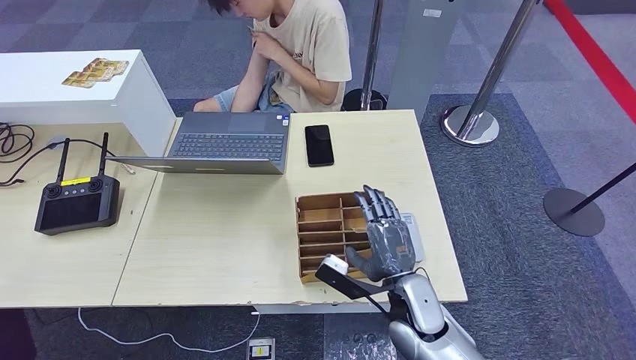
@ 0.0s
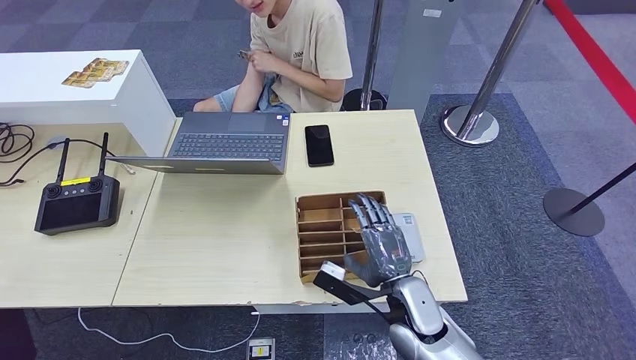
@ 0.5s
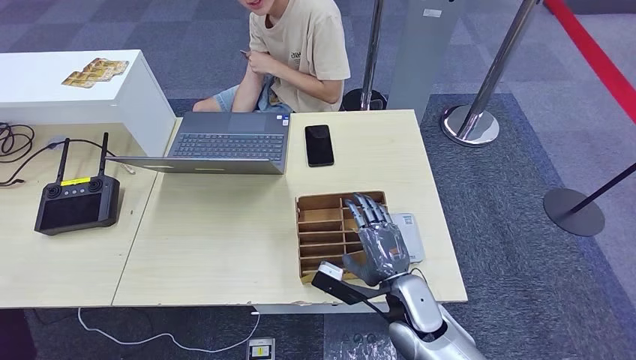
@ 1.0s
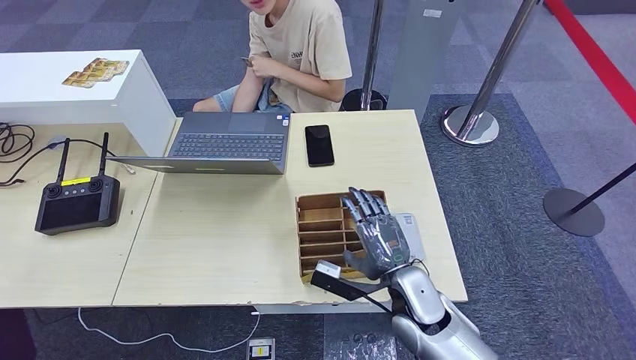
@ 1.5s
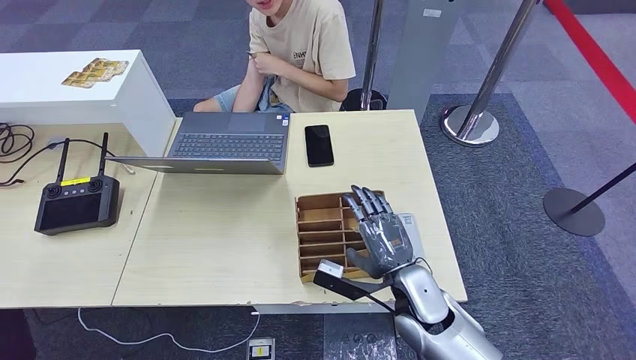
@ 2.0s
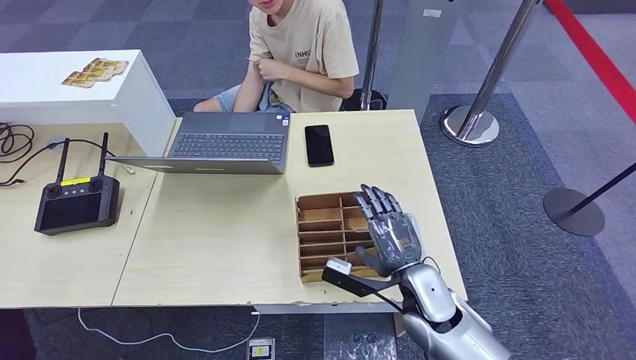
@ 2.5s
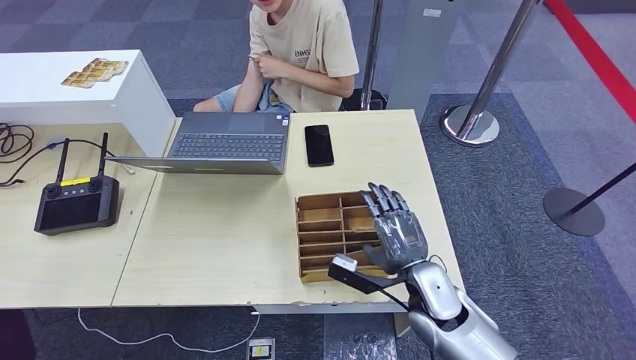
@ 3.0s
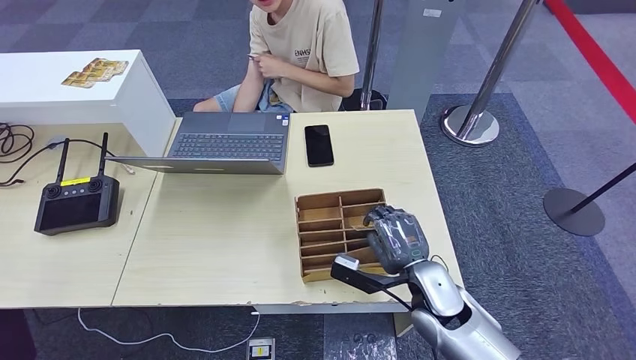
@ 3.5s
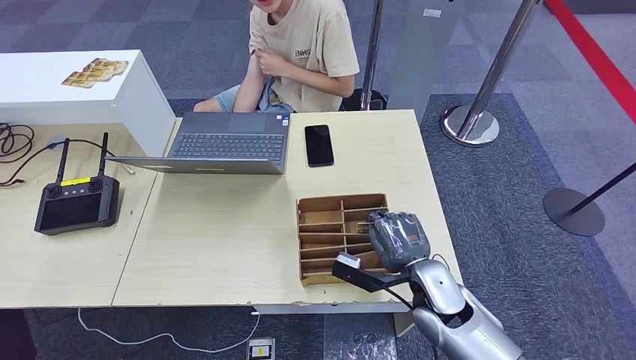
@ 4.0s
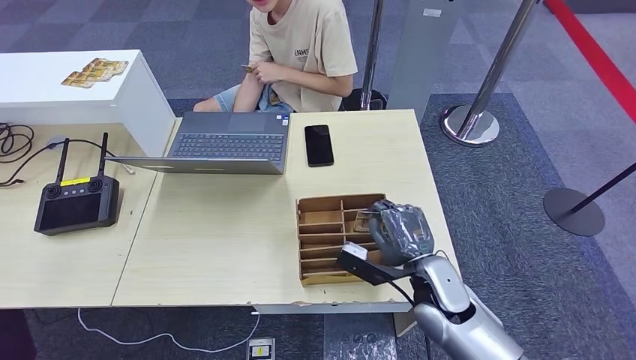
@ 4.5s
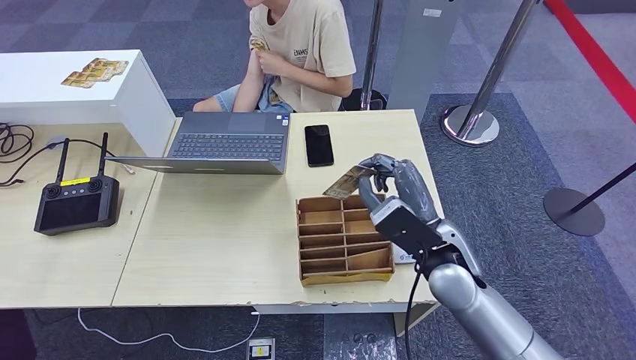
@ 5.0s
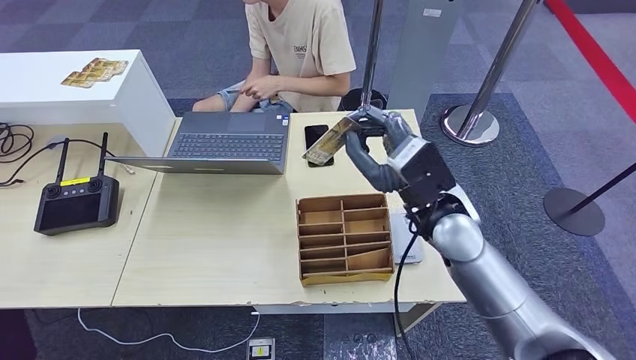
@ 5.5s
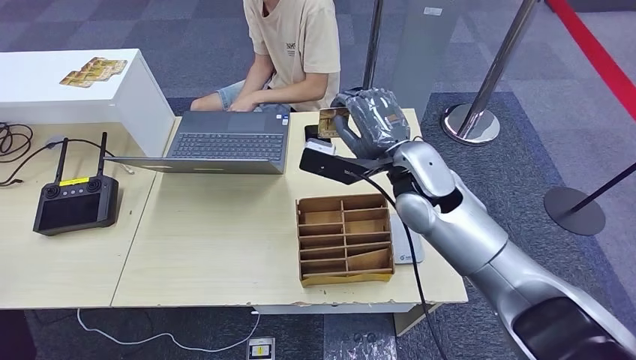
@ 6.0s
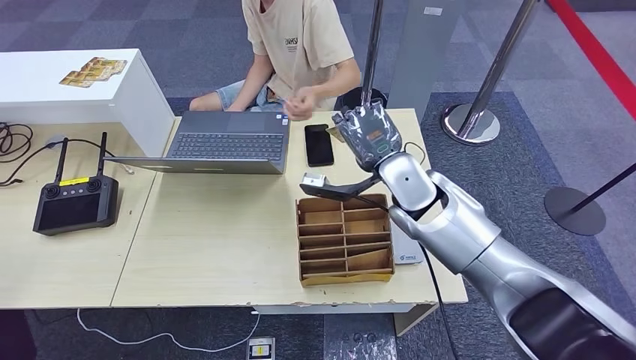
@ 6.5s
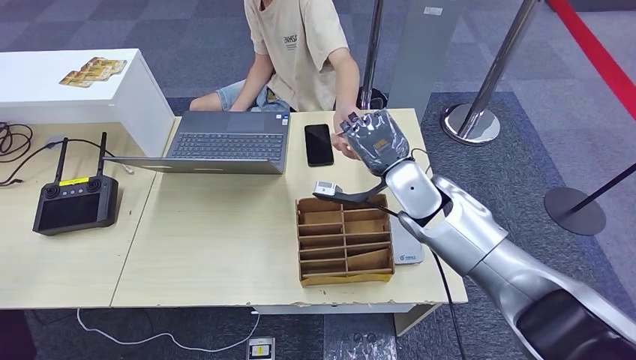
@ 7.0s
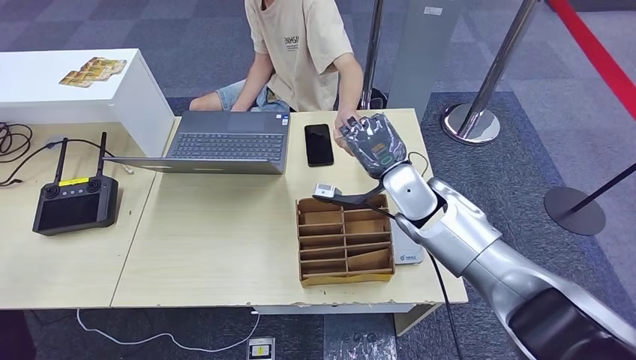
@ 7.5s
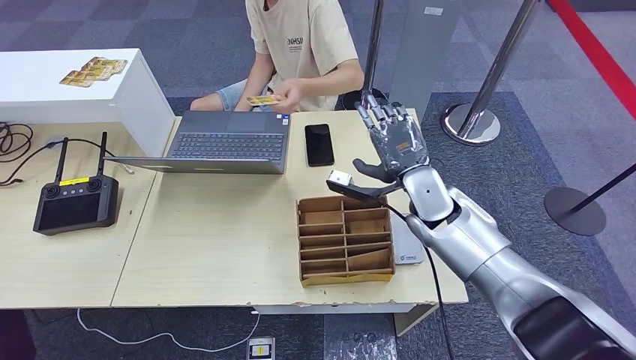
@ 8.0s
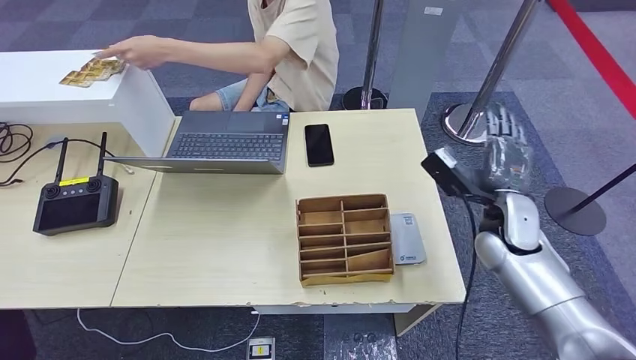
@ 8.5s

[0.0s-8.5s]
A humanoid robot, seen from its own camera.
Step, 0.0s to 5.0s: Pick up the room key from the key card box.
Step, 5.5s to 8.0s: Hand the room key to the person.
0.0s to 4.0s: The hands move only a little.
4.0s to 6.5s: The right hand heads upward and forward, covering some 20 cm.
6.5s to 8.5s: The right hand moves to the right, roughly 15 cm.

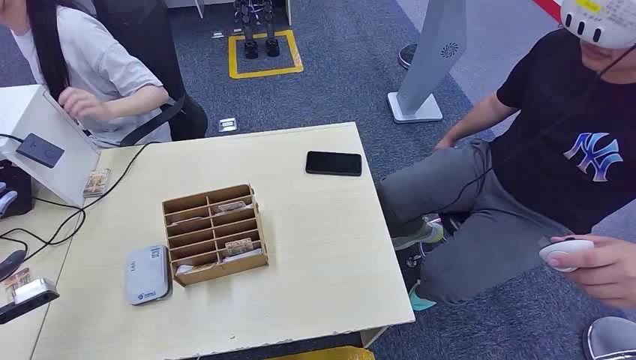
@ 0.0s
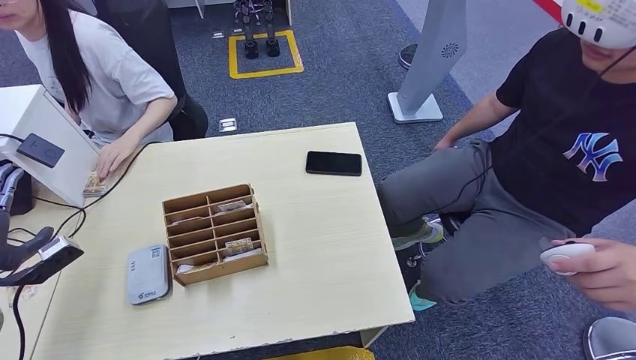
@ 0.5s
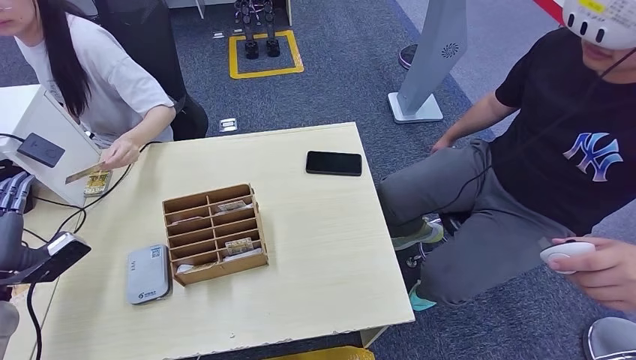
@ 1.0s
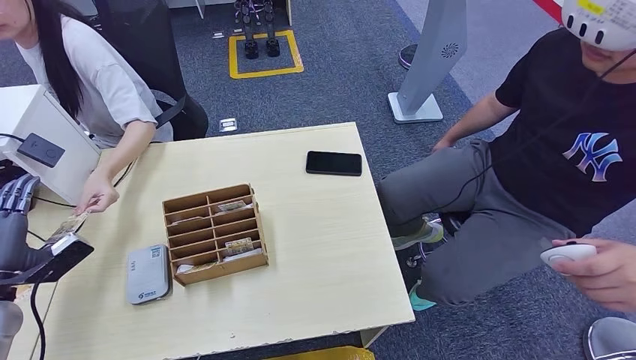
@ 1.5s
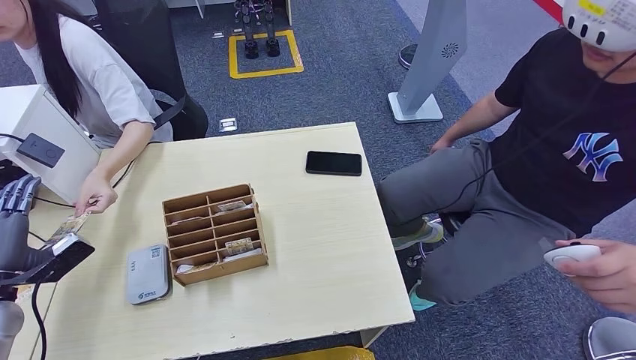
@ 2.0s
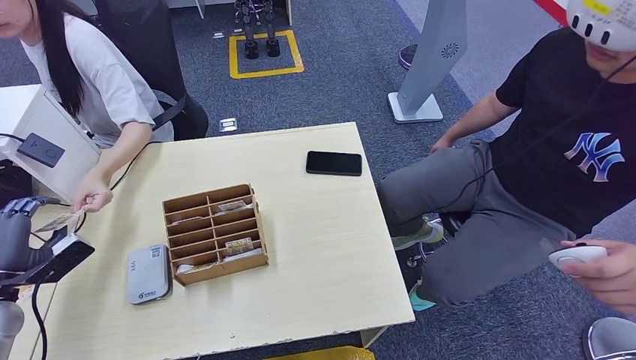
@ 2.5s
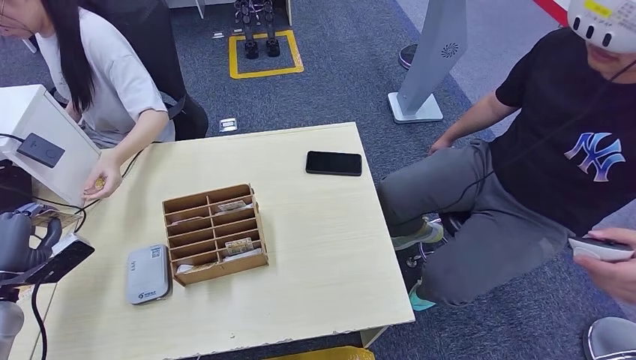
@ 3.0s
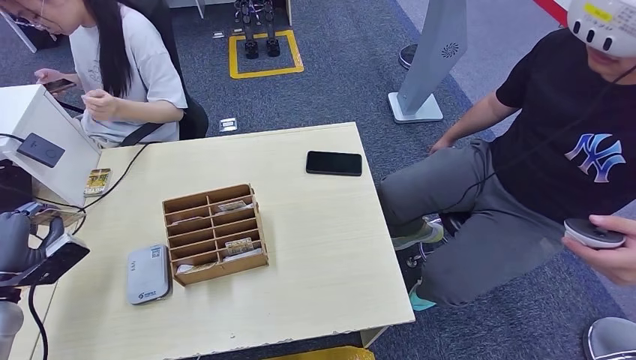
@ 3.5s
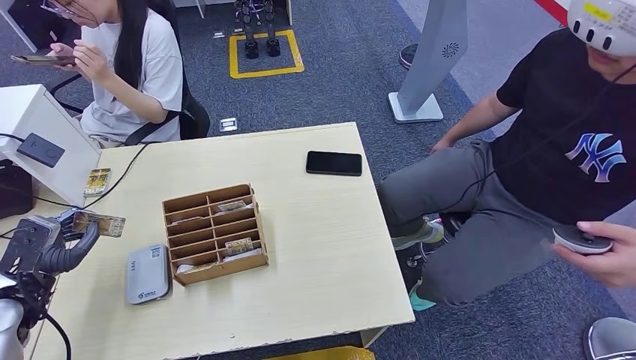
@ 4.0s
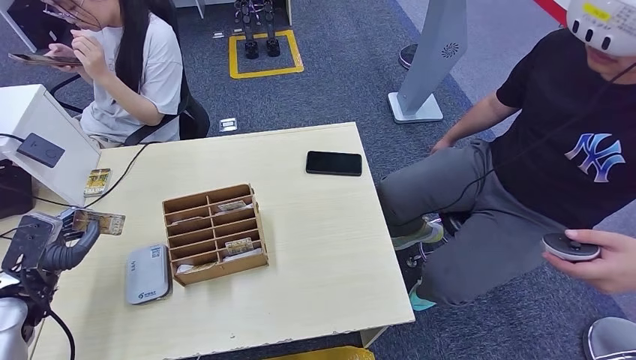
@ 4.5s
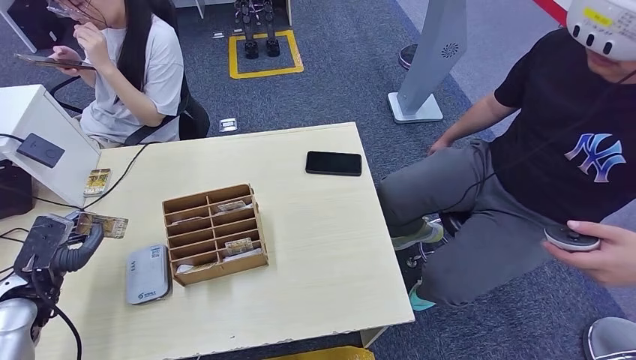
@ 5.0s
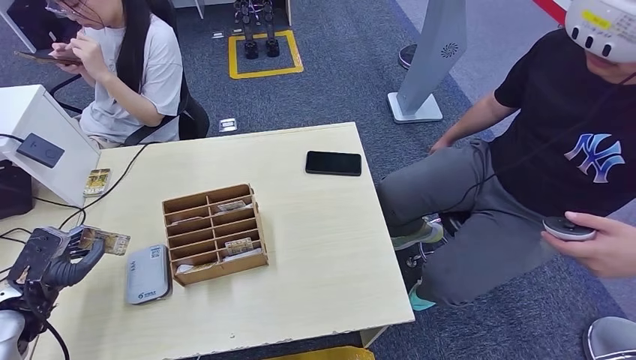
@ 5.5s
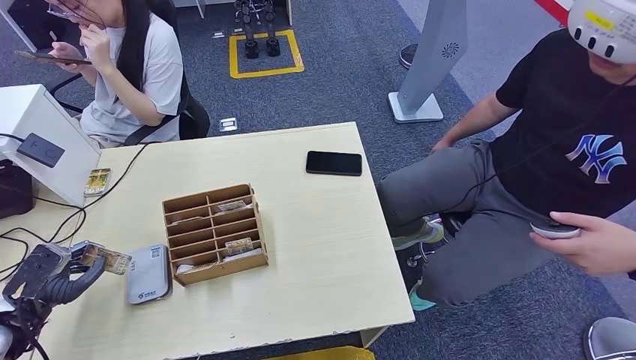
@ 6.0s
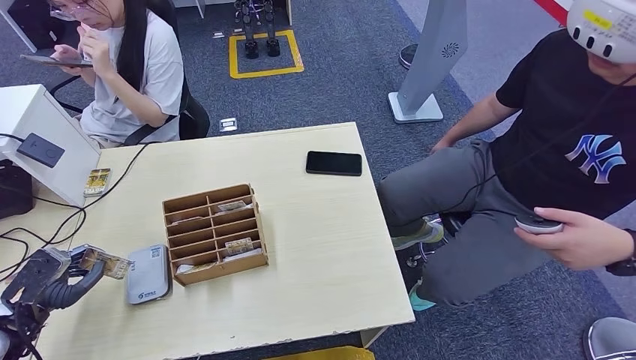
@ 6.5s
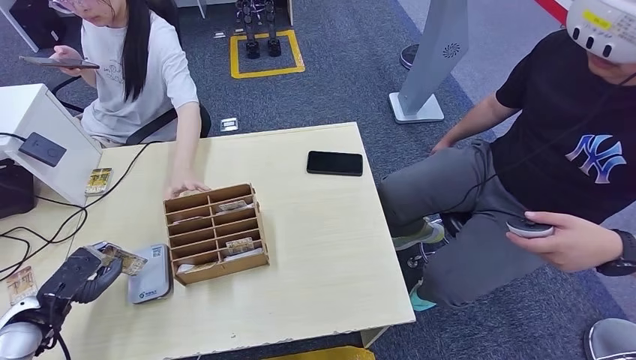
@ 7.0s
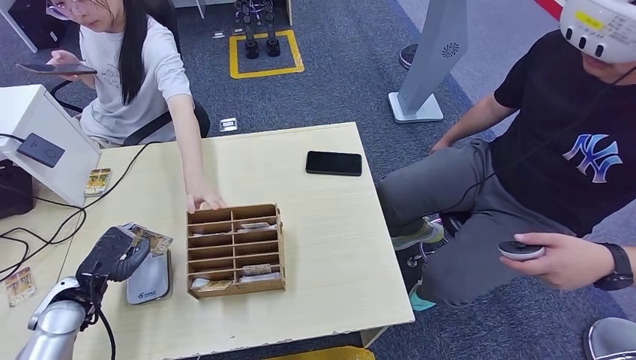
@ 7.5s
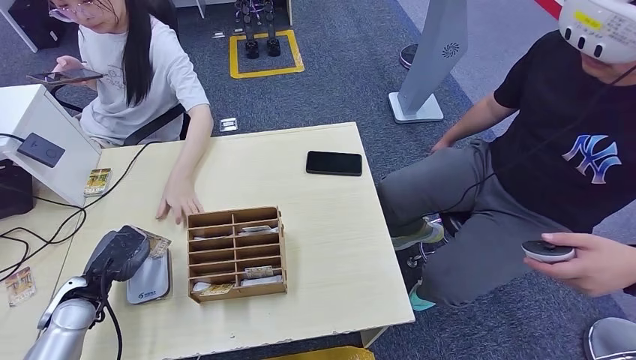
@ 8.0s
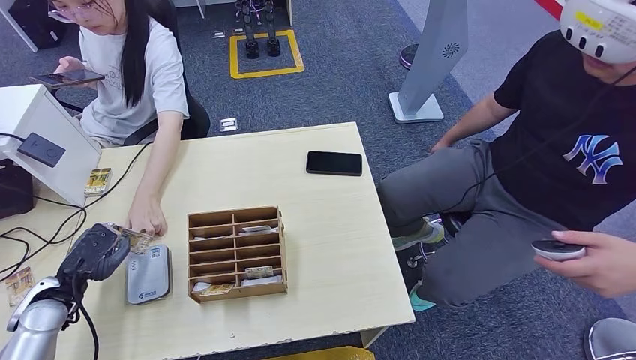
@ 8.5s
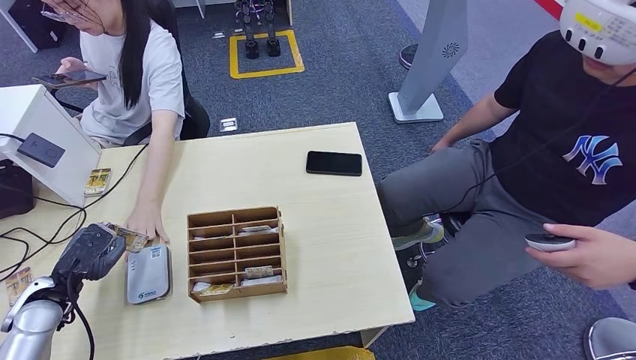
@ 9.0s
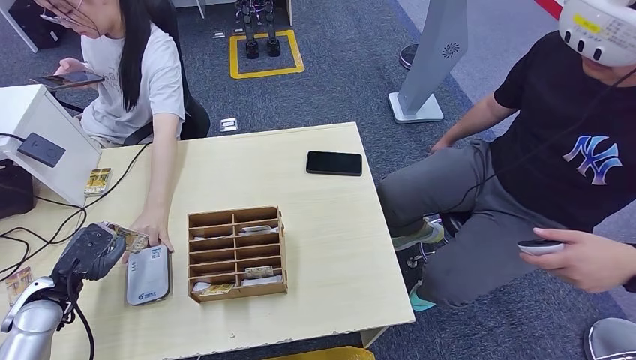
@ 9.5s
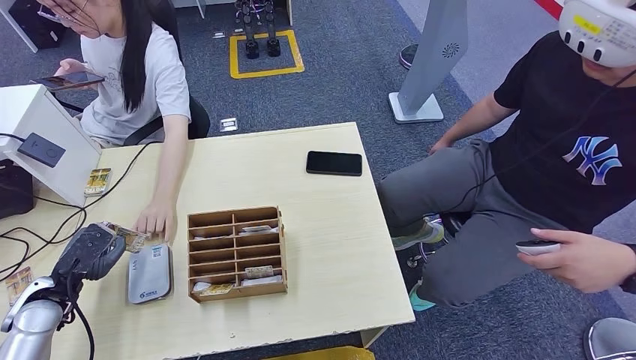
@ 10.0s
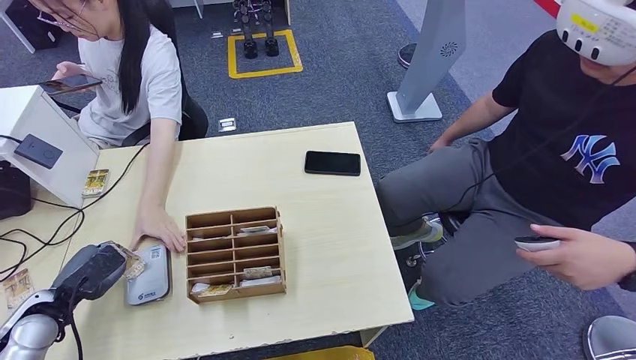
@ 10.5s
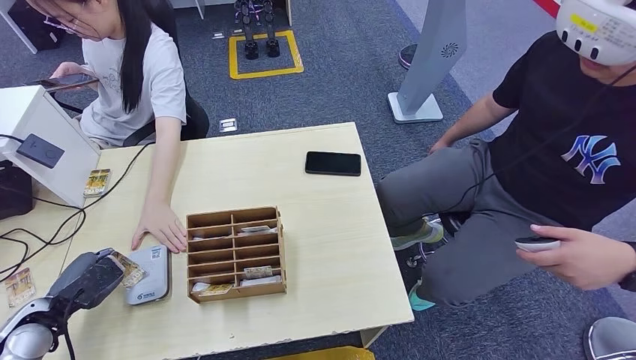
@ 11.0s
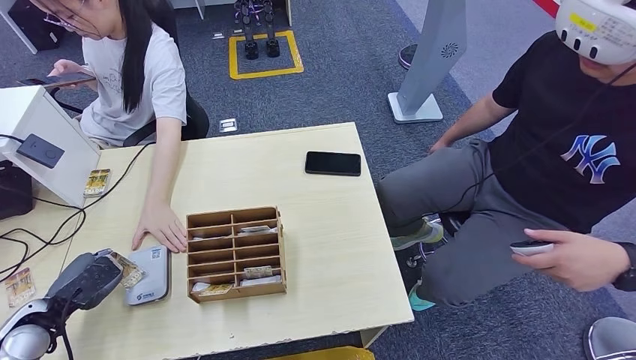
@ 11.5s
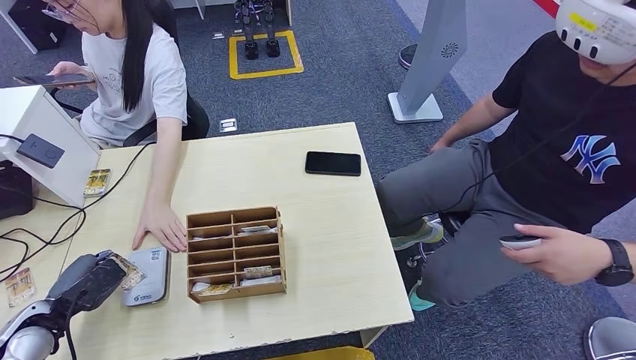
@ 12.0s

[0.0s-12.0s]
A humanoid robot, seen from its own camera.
Step, 0.0s to 3.0s: Take the ID card from the person's hand.
4.0s to 6.0s: The hands move only a little.
6.0s to 8.0s: The left hand moves to the right, some 10 cm.
8.0s to 10.0s: There are only small adjustments of the hands.
10.0s to 12.0s: There are only small adjustments of the hands.
